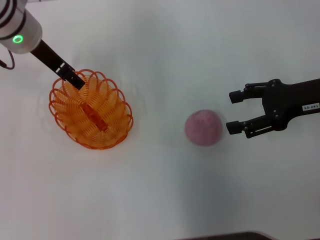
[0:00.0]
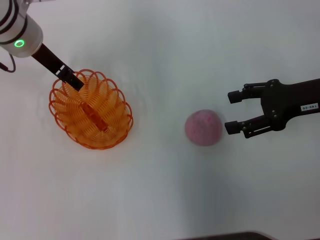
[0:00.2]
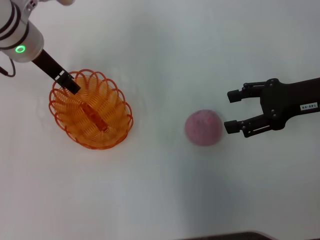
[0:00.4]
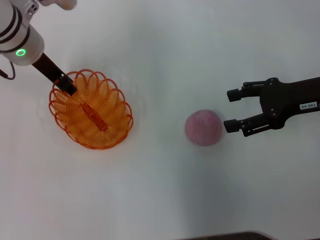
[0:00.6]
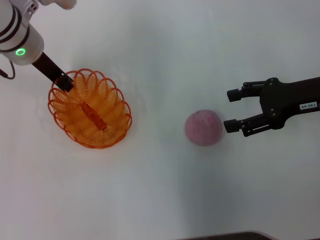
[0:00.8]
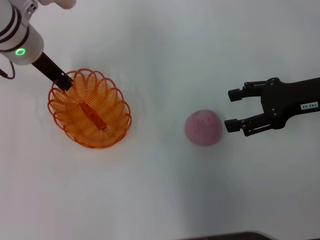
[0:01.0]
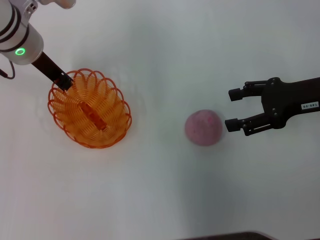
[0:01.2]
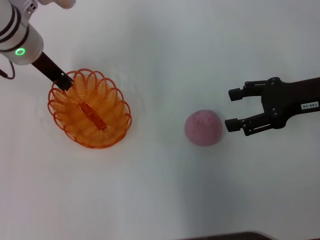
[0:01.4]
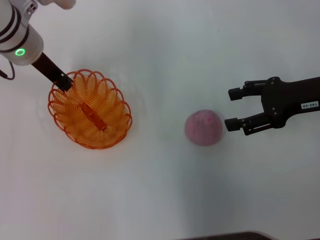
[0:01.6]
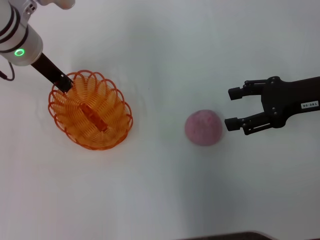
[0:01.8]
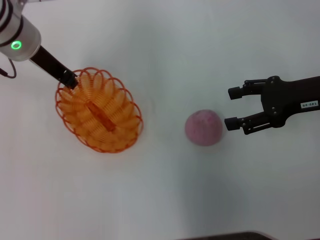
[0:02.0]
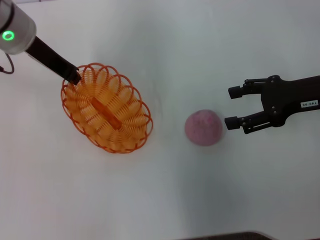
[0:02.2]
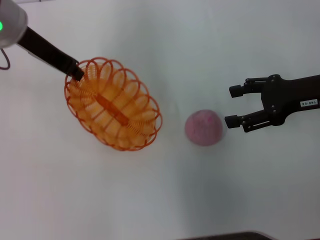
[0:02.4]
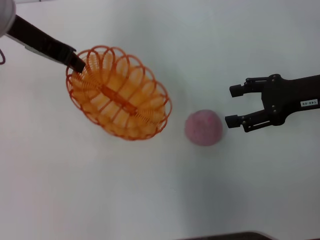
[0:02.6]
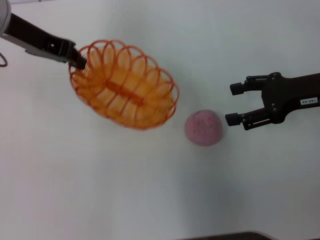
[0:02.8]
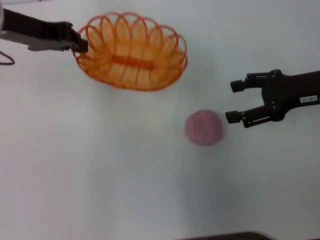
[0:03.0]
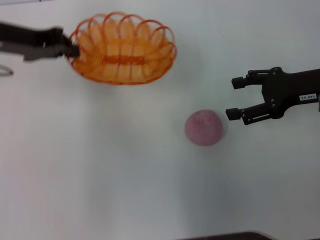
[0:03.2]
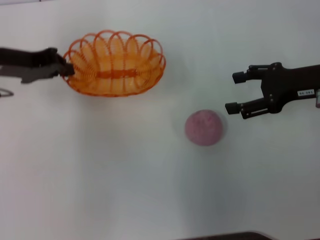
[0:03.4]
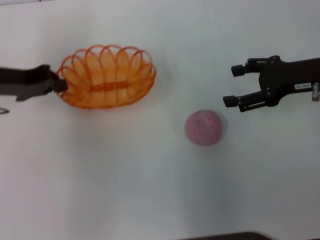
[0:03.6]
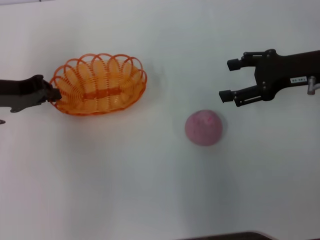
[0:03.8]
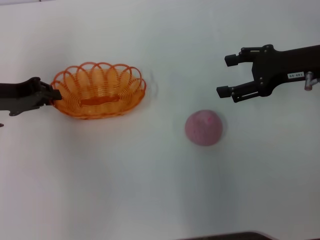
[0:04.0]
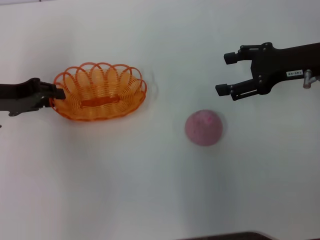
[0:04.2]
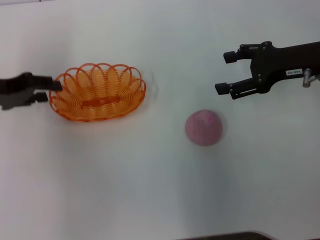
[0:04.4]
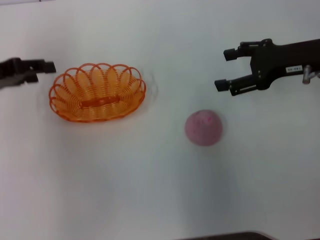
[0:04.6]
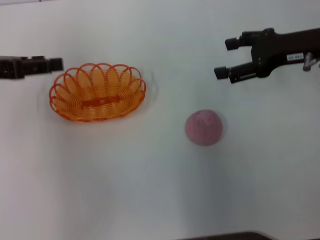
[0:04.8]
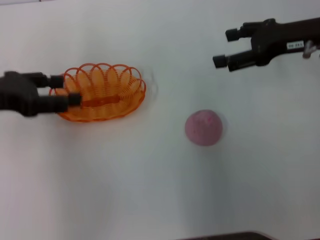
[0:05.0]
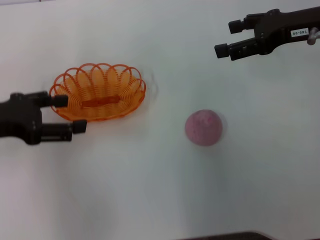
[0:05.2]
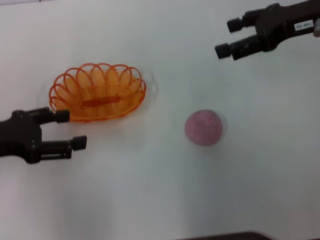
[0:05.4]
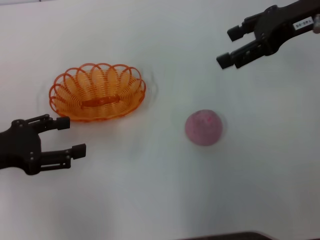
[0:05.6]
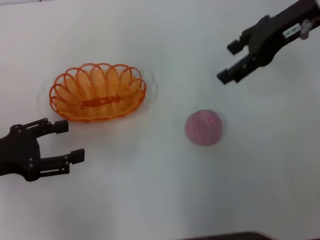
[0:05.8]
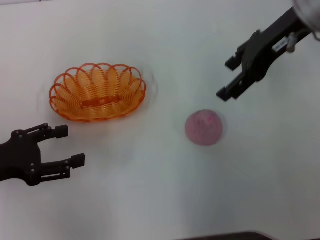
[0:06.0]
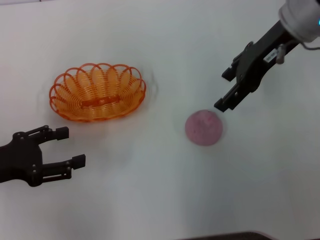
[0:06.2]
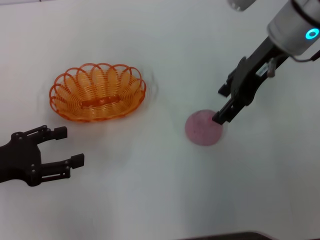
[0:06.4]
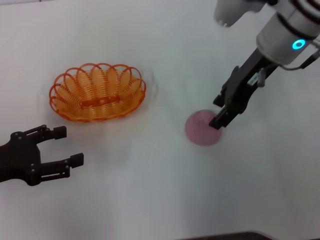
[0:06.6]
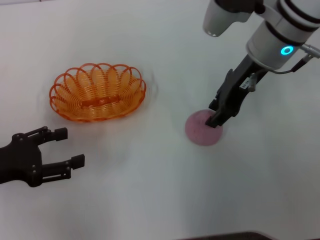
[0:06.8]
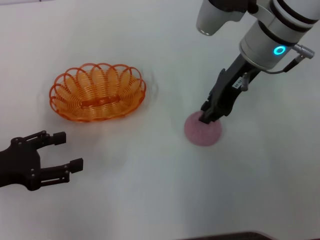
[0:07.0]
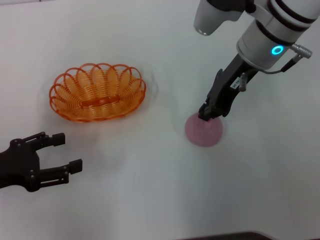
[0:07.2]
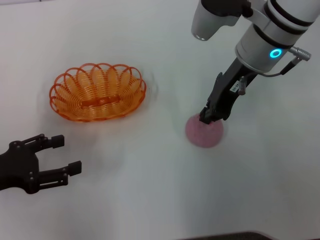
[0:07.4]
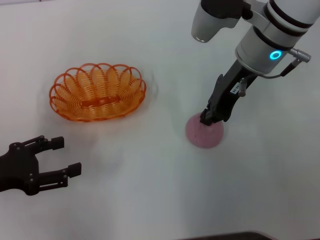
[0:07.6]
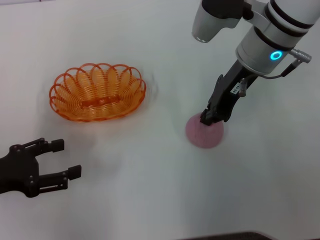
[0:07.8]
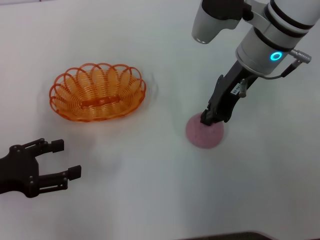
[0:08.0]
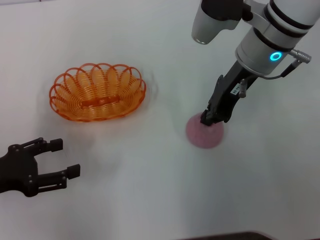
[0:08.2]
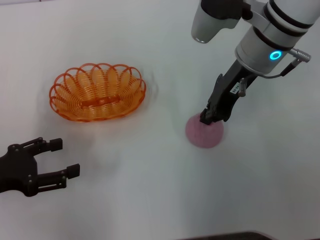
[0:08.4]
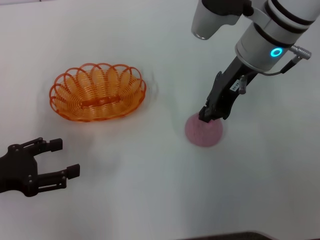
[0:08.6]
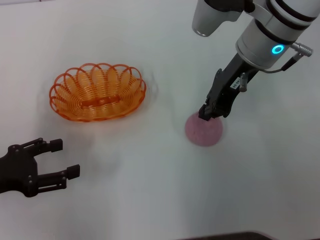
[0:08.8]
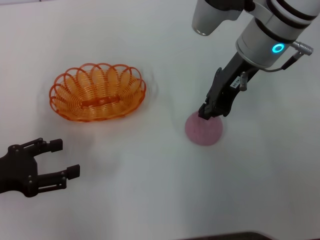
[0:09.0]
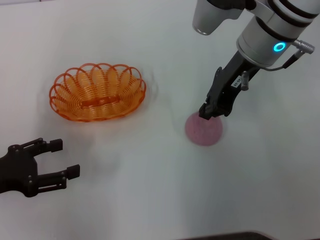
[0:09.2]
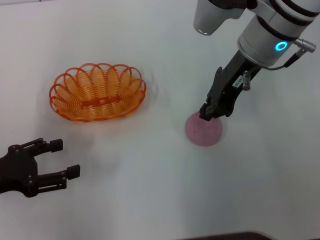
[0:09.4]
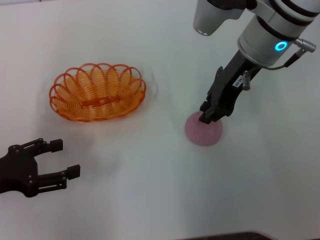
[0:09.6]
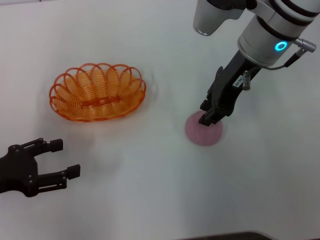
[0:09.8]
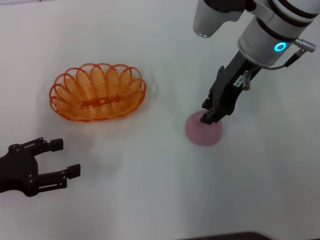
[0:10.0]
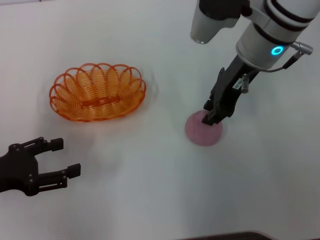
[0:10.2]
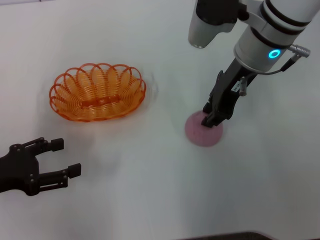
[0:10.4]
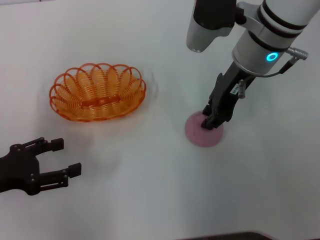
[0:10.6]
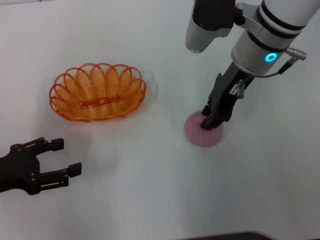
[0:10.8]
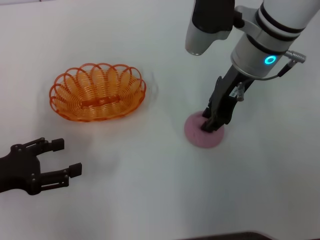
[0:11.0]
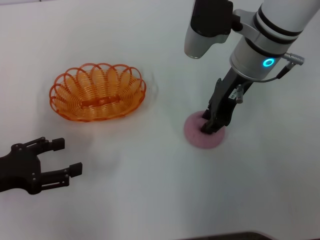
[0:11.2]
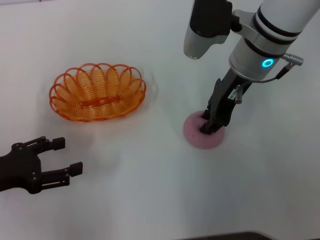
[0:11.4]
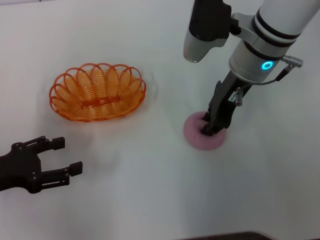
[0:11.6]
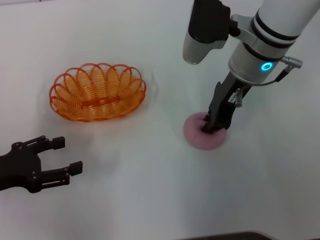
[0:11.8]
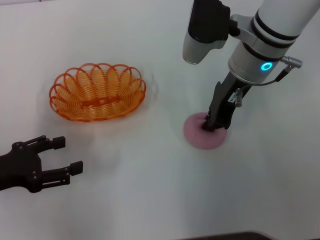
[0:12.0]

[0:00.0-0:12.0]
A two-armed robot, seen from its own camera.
Step, 0.0 to 2.0 s: Pick up the basket with the left gripper.
Step, 2.2 to 5.8 s: Place the basket in the center of view with the left gripper.
0.0 to 1.6 s: The left gripper closes up.
1.6 to 3.0 s: The left gripper travels upward by some 5 cm.
3.0 to 4.4 s: The left gripper moves downward and to the left, about 10 cm, and opens up.
4.4 to 6.0 s: The left gripper shifts some 10 cm backward, and opens. Meanwhile the right gripper is displaced upward and to the left by roughly 10 cm.
6.0 to 7.6 s: The right gripper shifts approximately 10 cm downward and to the left, and closes.
7.6 to 9.0 s: Both grippers stay about where they are.
9.0 to 10.4 s: Neither gripper changes place.
10.4 to 12.0 s: There are only small adjustments of the grippers.

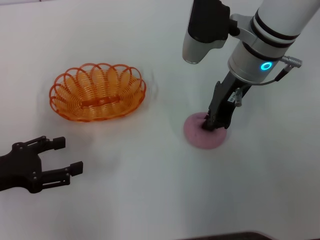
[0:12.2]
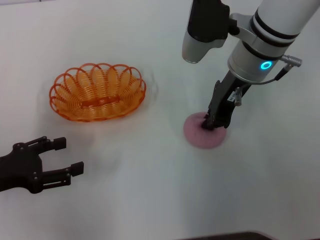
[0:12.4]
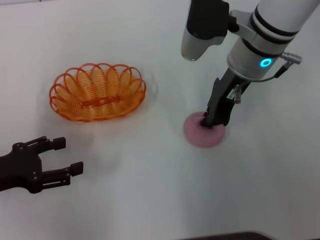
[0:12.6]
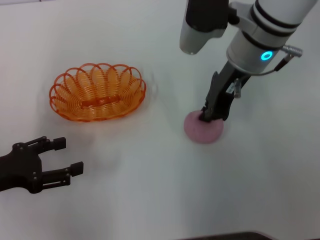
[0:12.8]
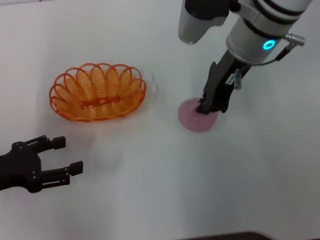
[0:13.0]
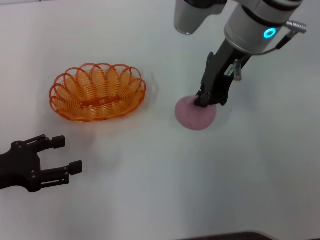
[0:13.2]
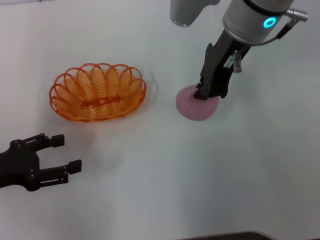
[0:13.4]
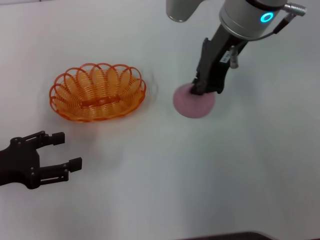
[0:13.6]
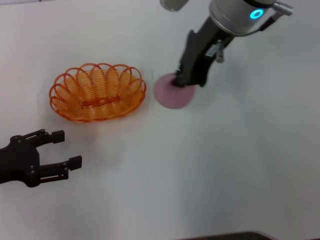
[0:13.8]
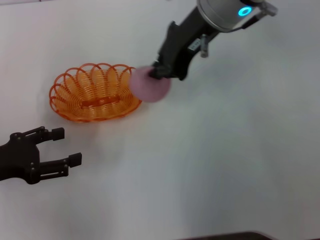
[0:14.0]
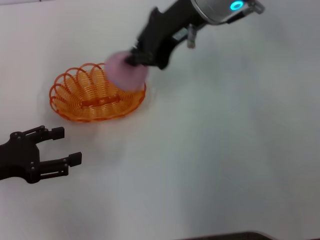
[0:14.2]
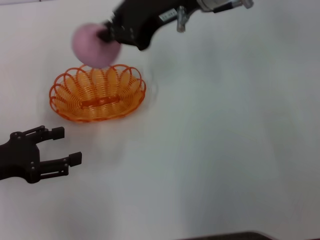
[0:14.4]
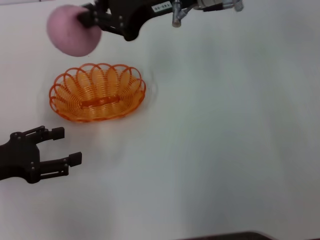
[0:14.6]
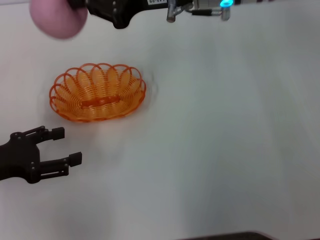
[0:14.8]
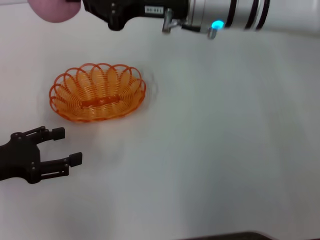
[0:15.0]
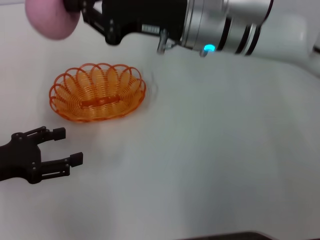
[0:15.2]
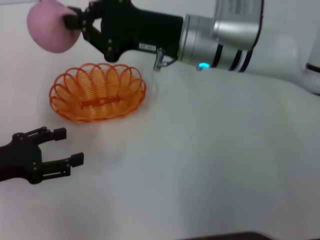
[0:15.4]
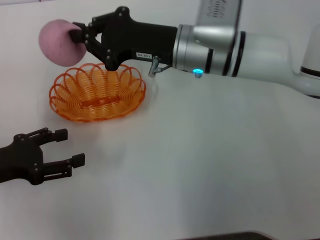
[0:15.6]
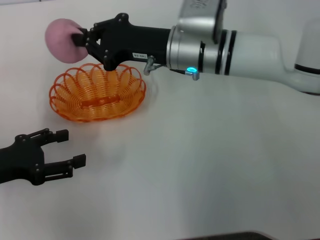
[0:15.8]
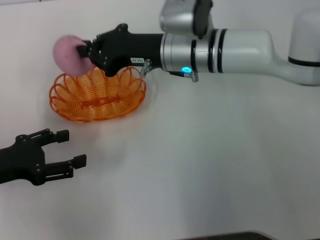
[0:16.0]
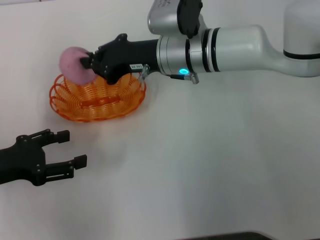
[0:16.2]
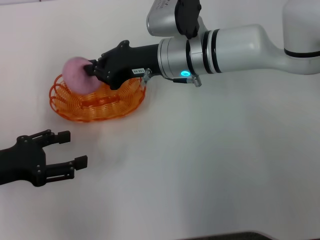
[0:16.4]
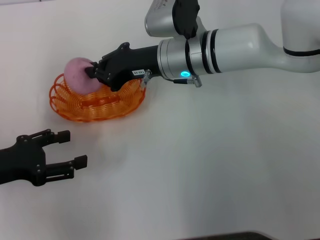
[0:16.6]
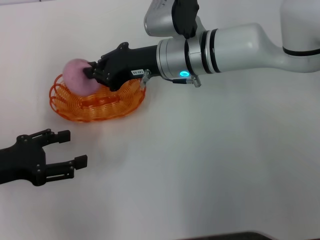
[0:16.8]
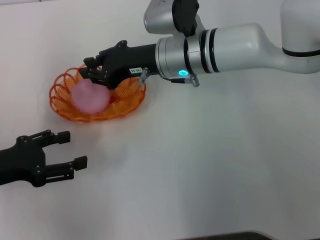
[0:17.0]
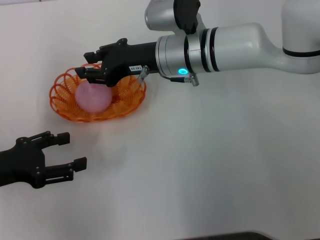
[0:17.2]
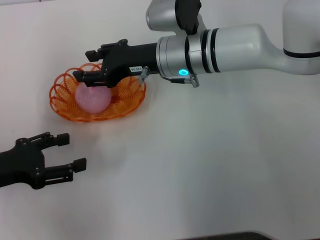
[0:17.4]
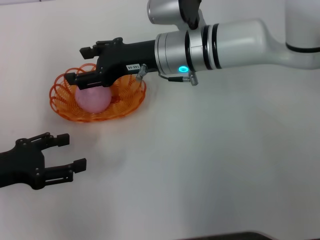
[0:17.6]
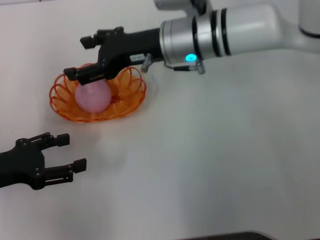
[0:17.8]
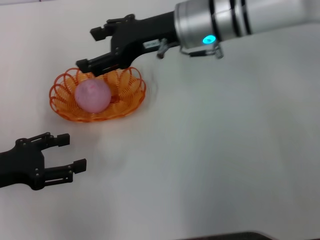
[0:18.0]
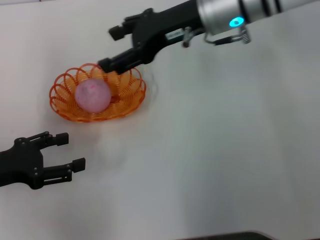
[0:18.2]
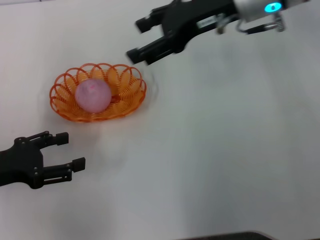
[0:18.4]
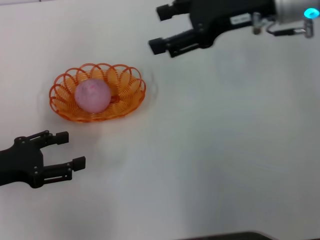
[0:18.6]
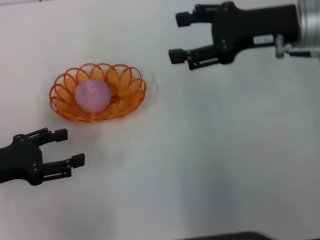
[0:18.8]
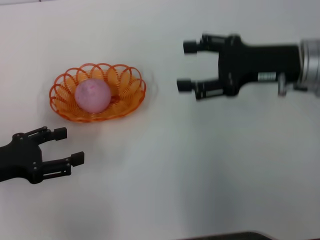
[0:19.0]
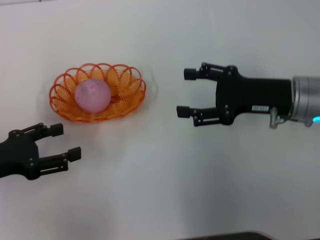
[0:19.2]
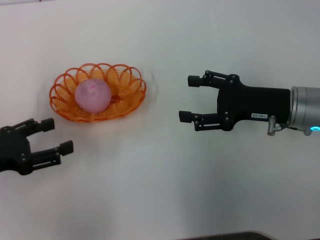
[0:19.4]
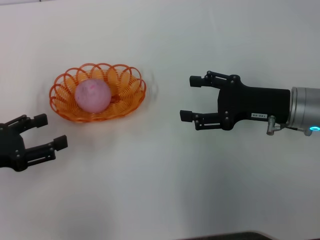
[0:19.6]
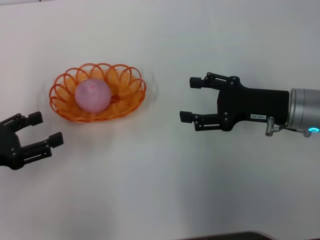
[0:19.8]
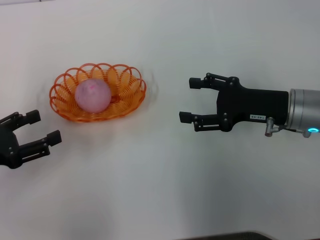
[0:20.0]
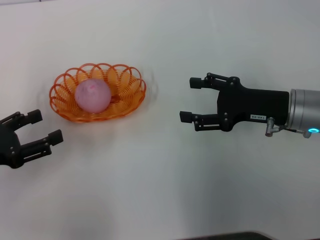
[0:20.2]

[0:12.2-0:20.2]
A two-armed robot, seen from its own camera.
Step, 13.4 to 17.4 s: Place the peach into the basket with the right gripper.
12.2 to 13.8 s: The right gripper heads upward, covering roughly 10 cm.
13.8 to 15.4 s: The right gripper goes some 10 cm downward.
17.0 to 18.6 s: The right gripper travels to the right and upward by roughly 15 cm, and opens up.
18.6 to 20.2 s: The right gripper travels downward and backward by about 15 cm.

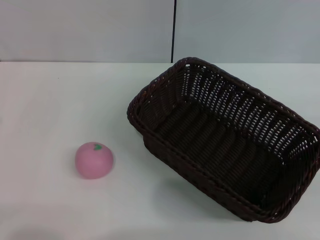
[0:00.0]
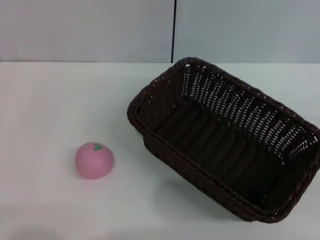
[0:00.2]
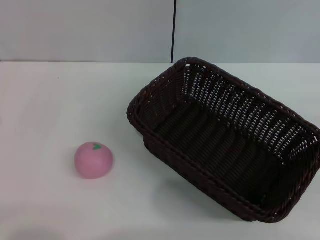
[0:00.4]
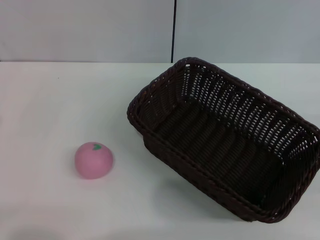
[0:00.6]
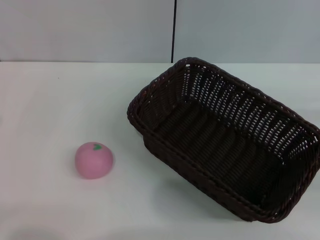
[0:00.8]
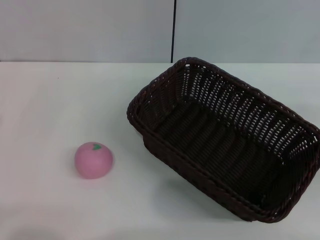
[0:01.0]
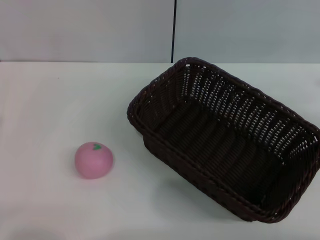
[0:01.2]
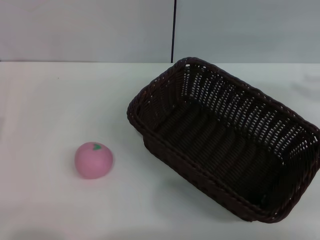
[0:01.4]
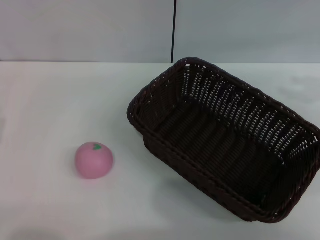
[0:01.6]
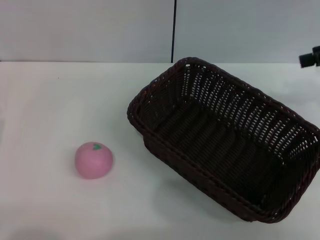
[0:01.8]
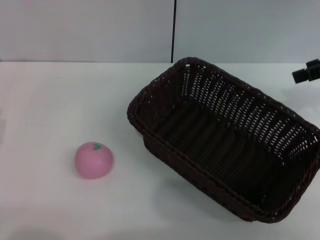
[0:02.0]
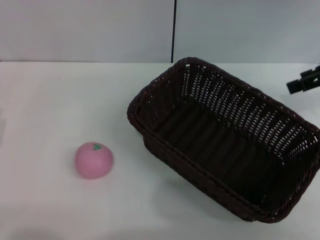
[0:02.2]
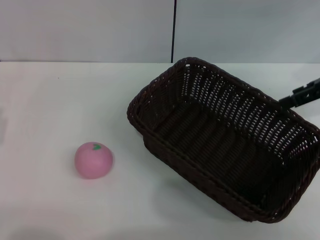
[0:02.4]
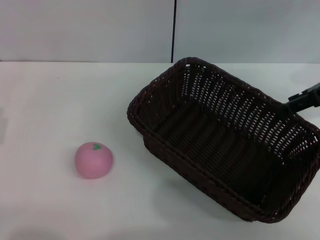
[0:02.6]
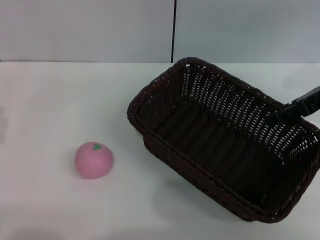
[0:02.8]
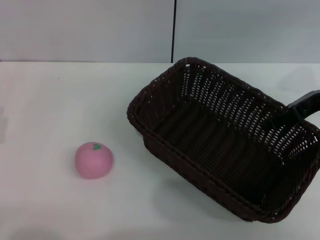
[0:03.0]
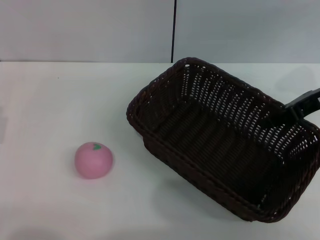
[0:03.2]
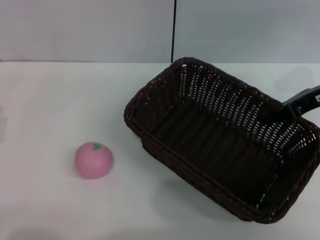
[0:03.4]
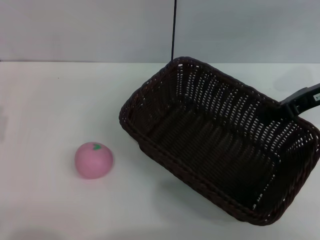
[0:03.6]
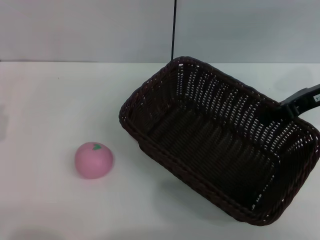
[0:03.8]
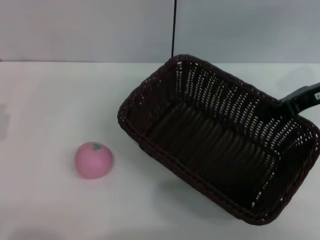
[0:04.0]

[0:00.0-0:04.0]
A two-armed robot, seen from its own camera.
0.0 to 1.4 s: The right gripper travels upward and forward by roughly 20 cm.
1.4 to 2.6 s: The right gripper is displaced to the left and forward by roughly 10 cm.
2.6 to 4.0 s: The right gripper closes up.
